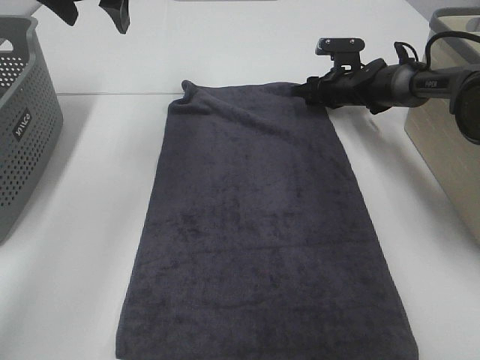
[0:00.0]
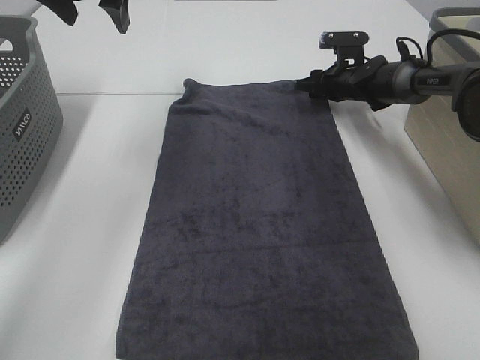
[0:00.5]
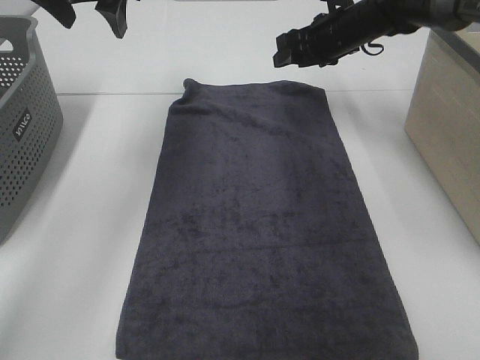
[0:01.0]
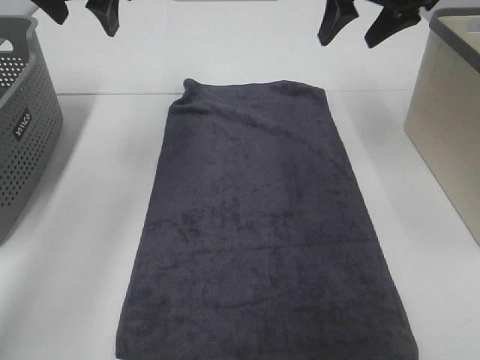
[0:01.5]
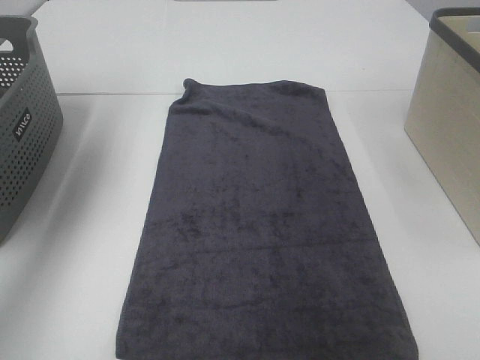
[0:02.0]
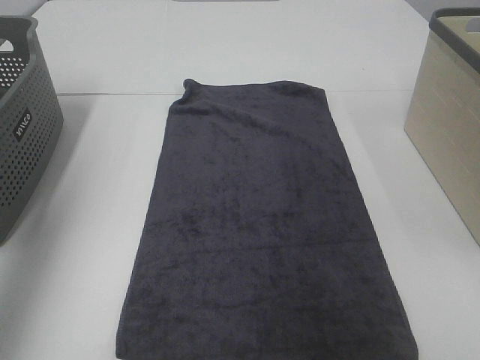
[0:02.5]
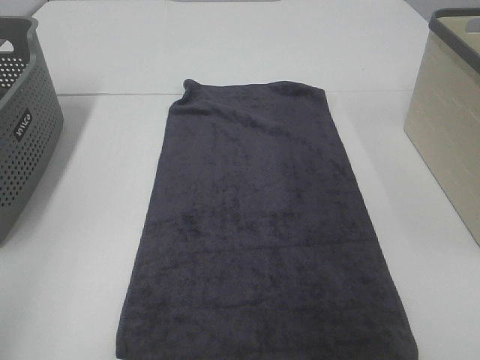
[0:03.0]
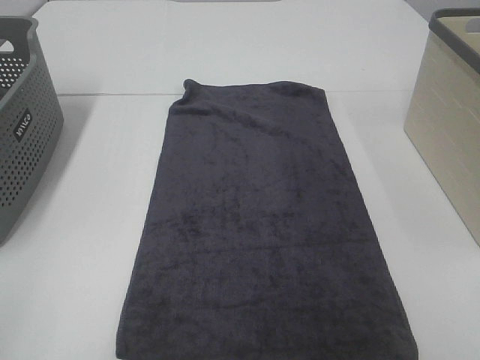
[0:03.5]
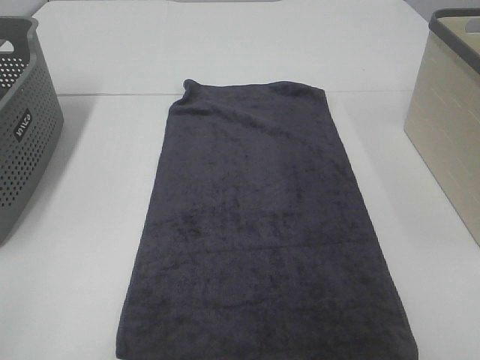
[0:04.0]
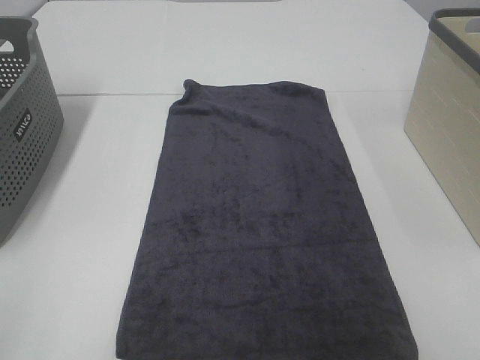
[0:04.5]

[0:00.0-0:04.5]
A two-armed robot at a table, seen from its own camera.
Task of the whole recording: Remove the towel and place it.
0:00.0 to 0:02.0: The right gripper is displaced upward and backward by approximately 40 cm, while the left gripper is displaced to the left, backward and upward by approximately 15 cm.
0:02.0 to 0:04.5: The left gripper is displaced backward by roughly 40 cm.

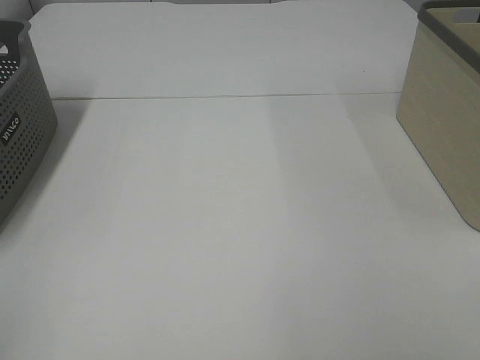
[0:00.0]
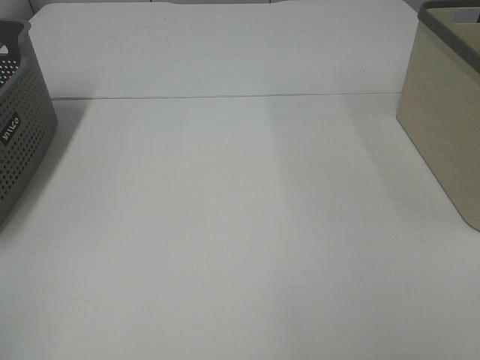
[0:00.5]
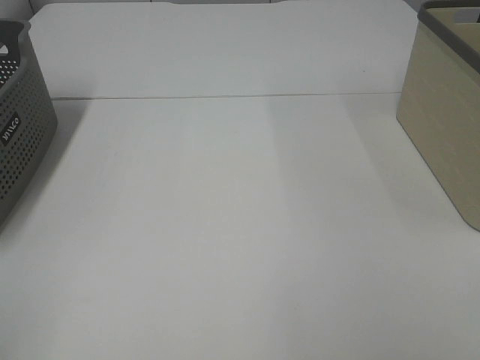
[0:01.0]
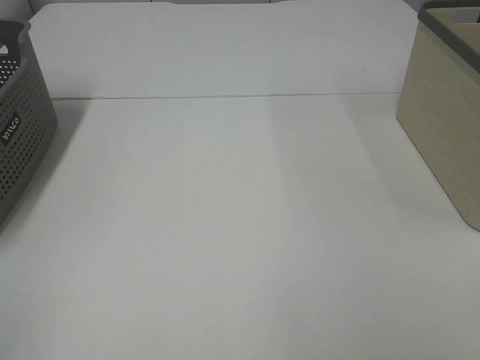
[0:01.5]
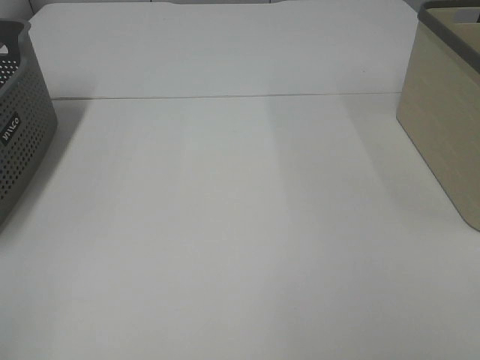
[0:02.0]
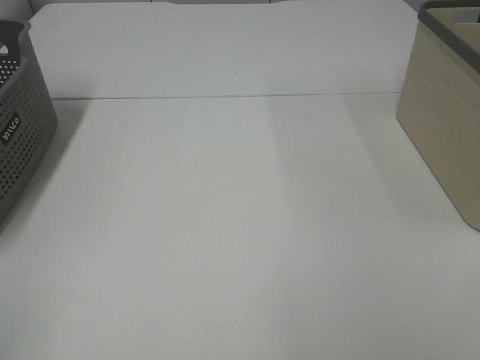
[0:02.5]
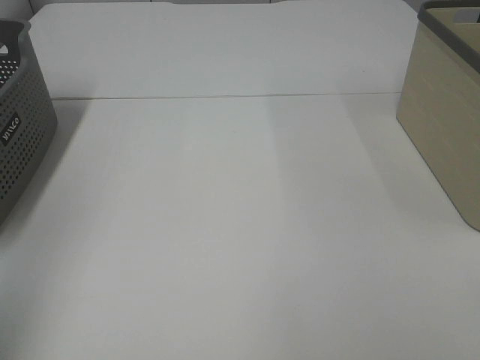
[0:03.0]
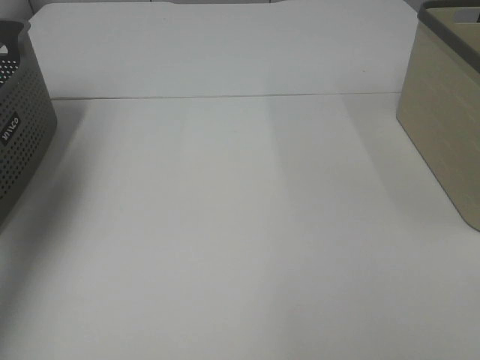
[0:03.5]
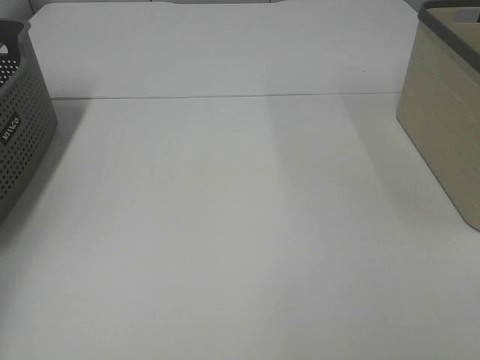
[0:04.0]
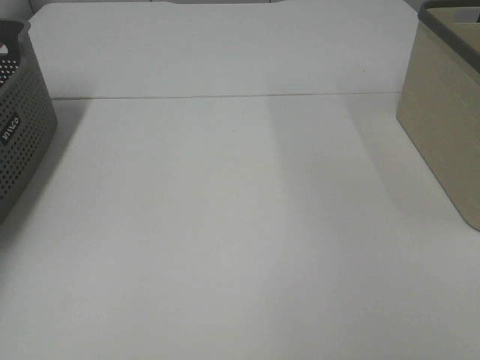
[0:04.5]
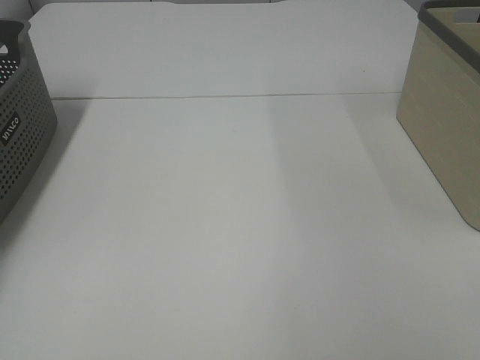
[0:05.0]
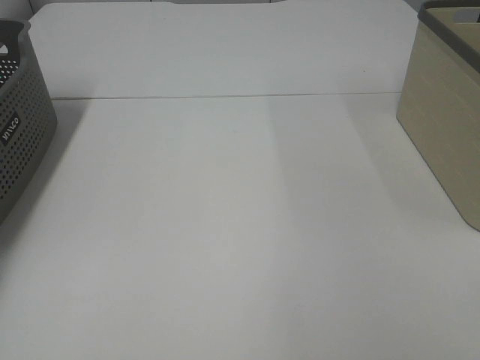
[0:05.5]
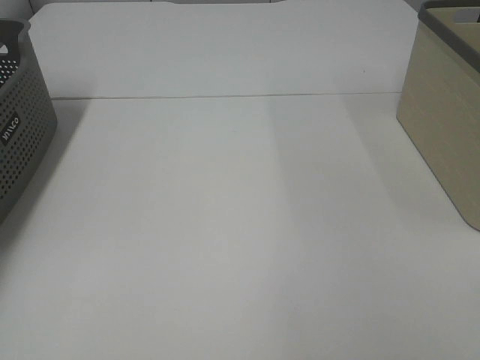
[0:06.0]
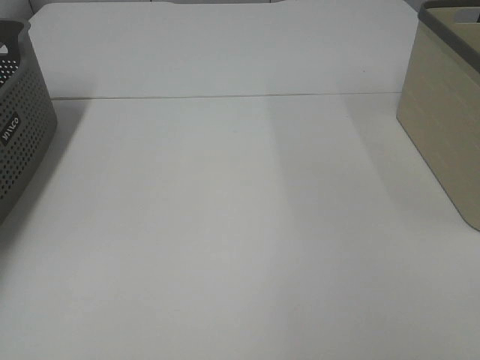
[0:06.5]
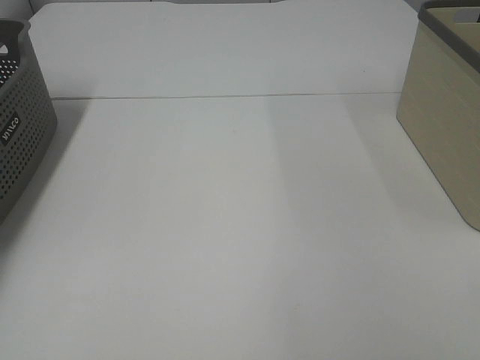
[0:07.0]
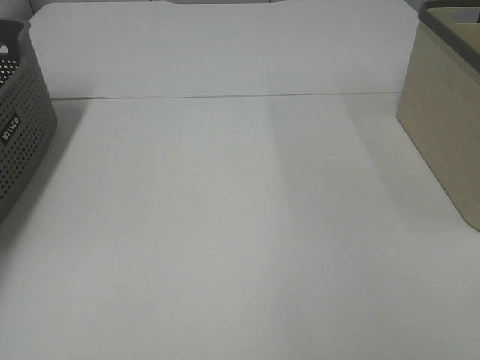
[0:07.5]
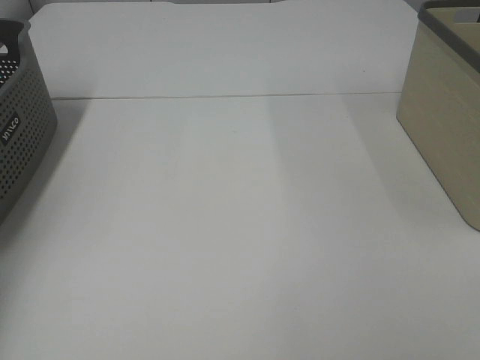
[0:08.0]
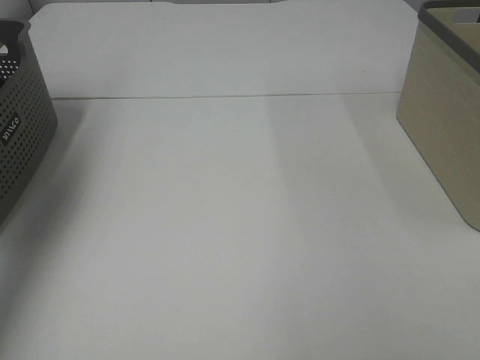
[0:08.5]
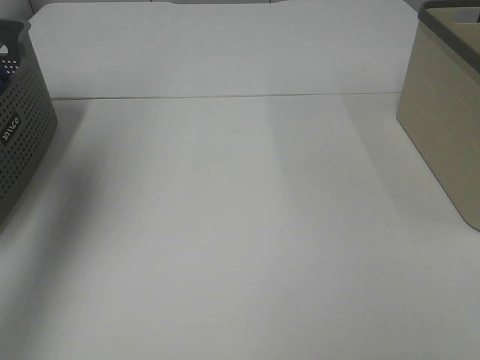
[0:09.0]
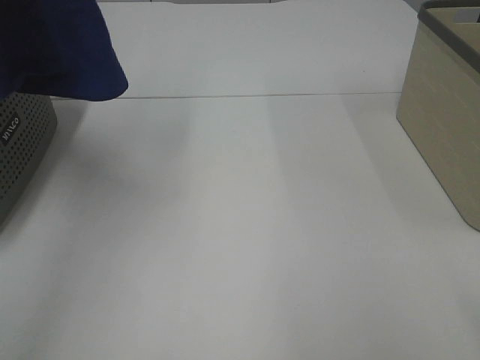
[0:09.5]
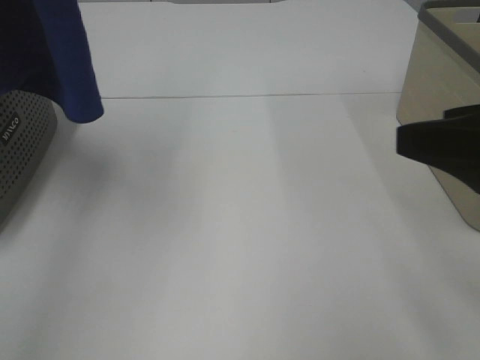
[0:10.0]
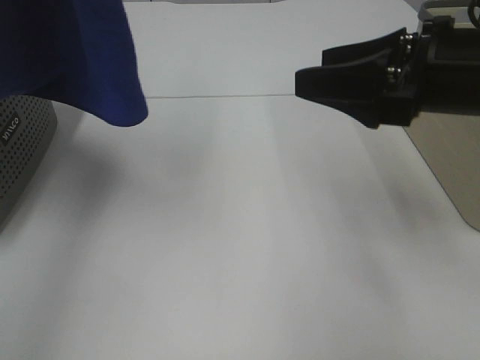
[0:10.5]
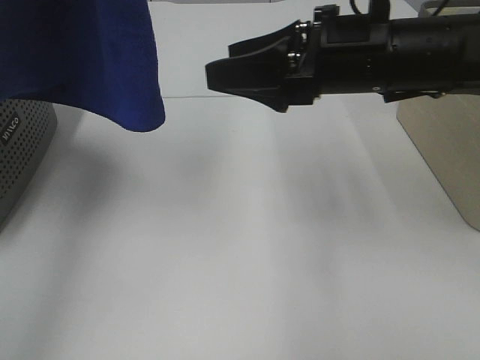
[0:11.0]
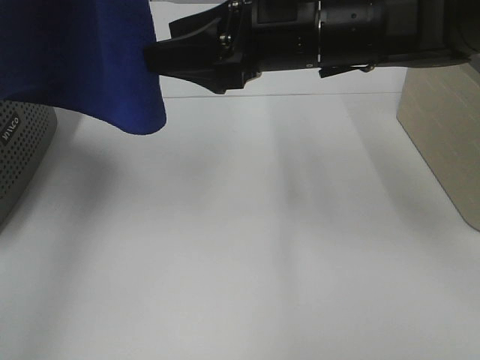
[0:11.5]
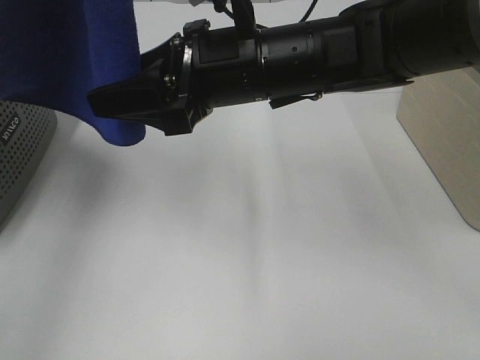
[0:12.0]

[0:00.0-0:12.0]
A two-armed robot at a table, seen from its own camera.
Task of the whole recording: Remove the towel and place it.
Step, 0:08.5 to 0:11.5: Right hand: grab a corner of the blue towel and straighten it.
0:00.0 to 0:02.0: Neither gripper changes place.
0:02.0 to 0:04.0: The left gripper goes about 40 cm forward.
0:08.0 to 0:10.0: The right gripper moves forward, some 15 cm; the left gripper heads upward, to the right and backward, covering approximately 35 cm.
0:10.0 to 0:12.0: The right gripper goes roughly 25 cm to the left and forward.

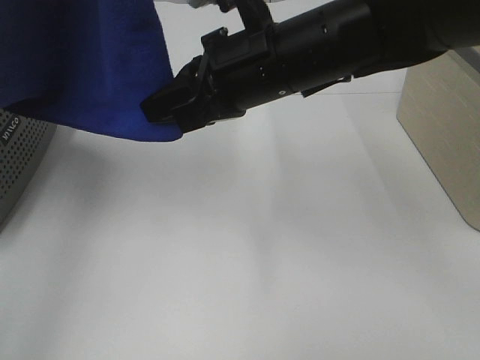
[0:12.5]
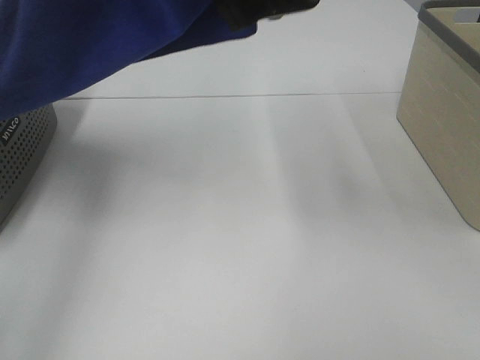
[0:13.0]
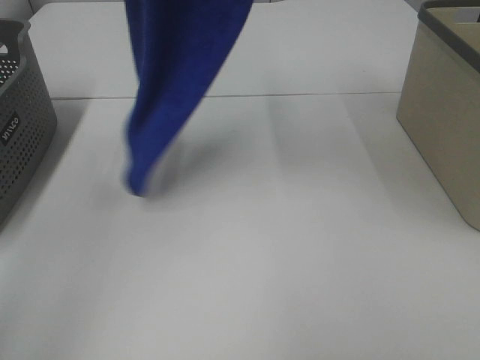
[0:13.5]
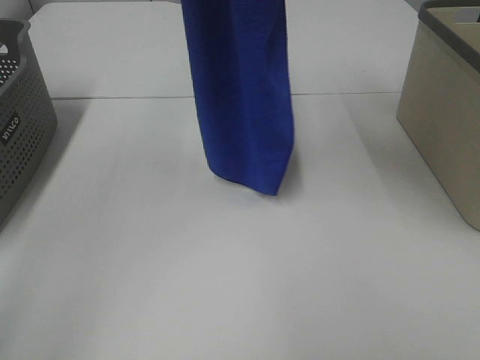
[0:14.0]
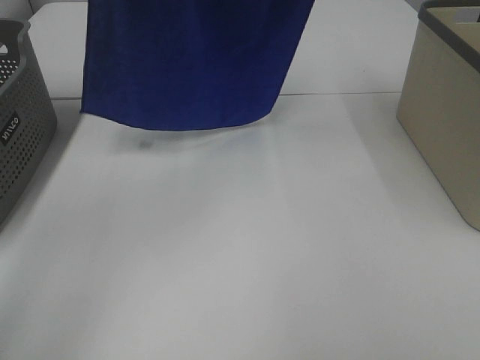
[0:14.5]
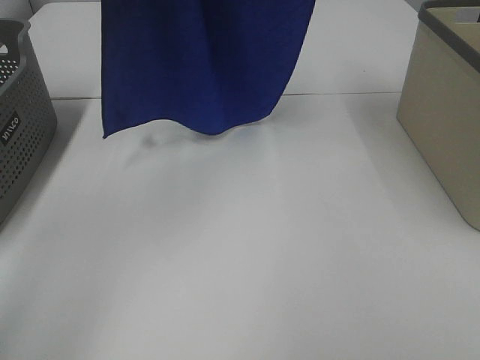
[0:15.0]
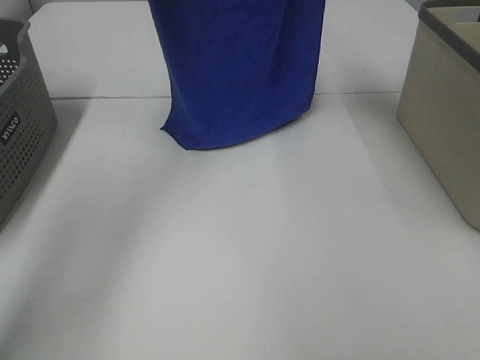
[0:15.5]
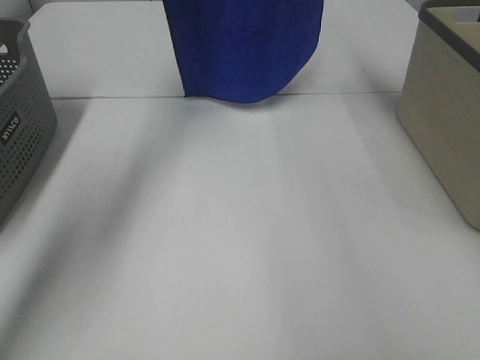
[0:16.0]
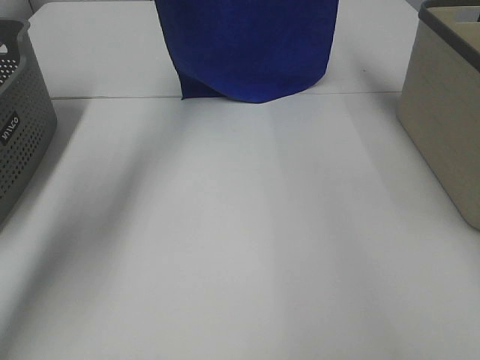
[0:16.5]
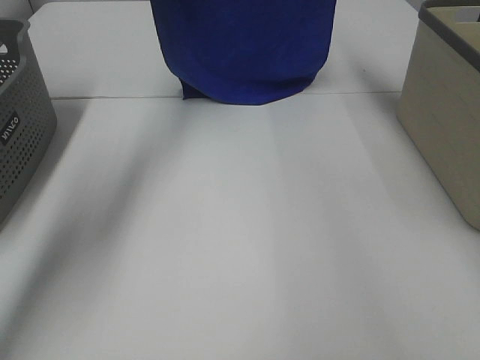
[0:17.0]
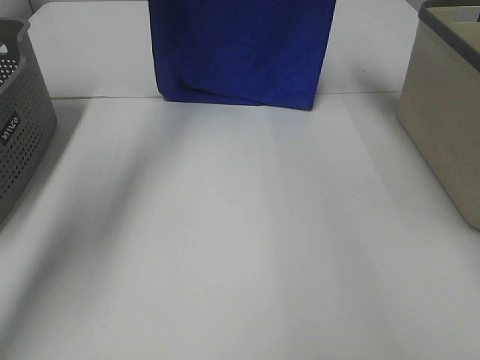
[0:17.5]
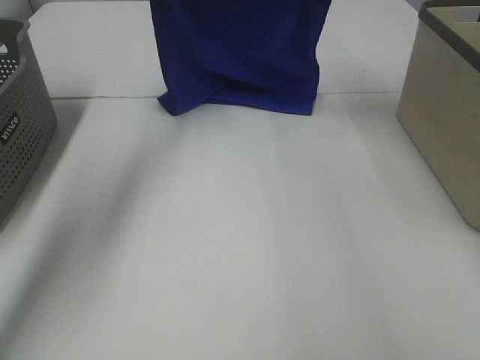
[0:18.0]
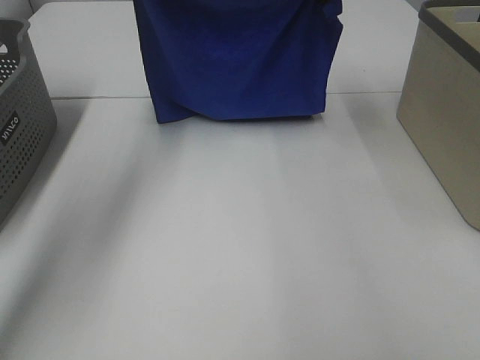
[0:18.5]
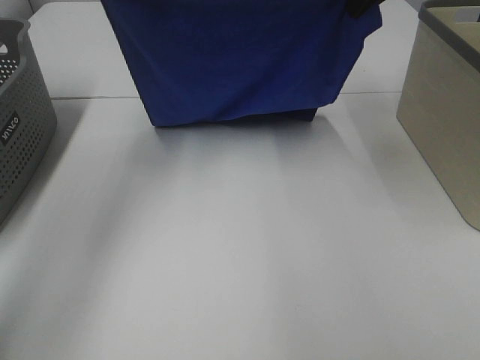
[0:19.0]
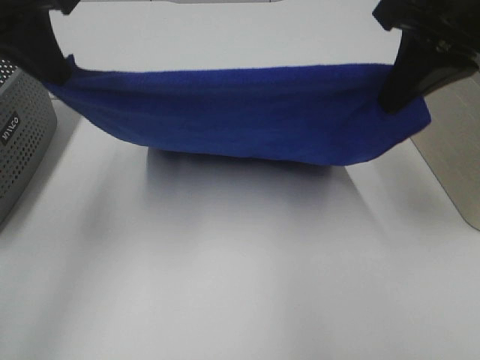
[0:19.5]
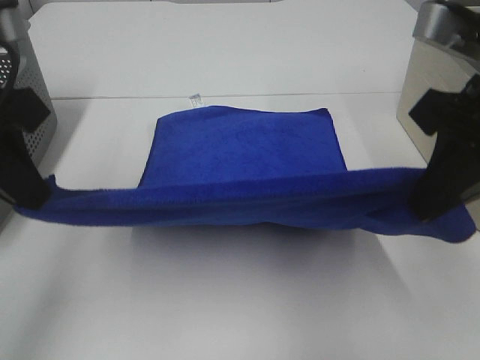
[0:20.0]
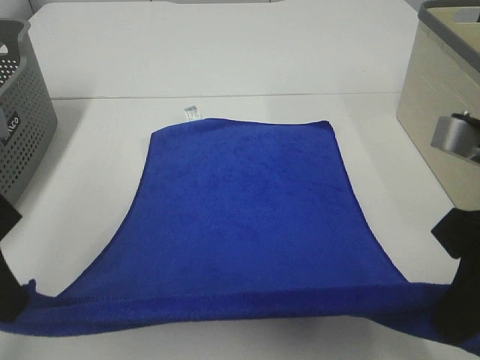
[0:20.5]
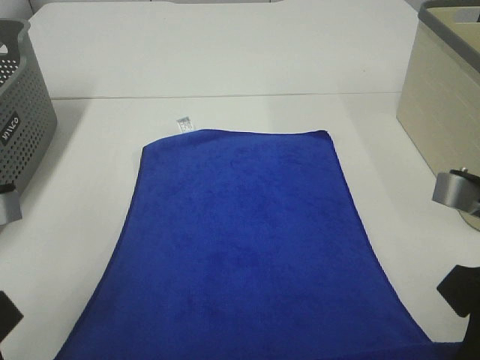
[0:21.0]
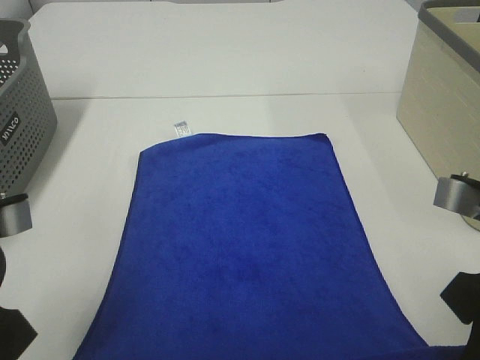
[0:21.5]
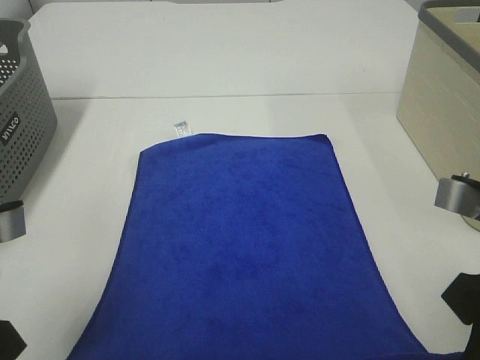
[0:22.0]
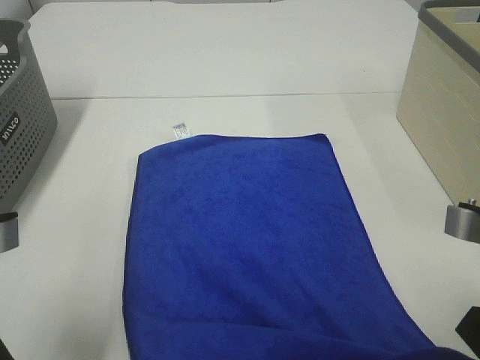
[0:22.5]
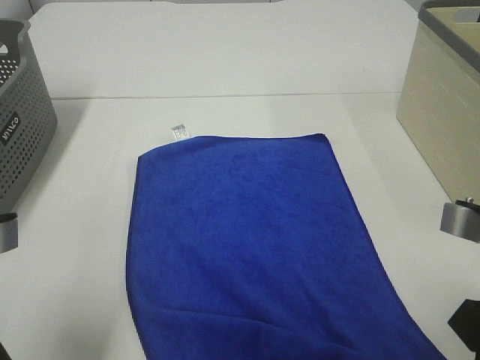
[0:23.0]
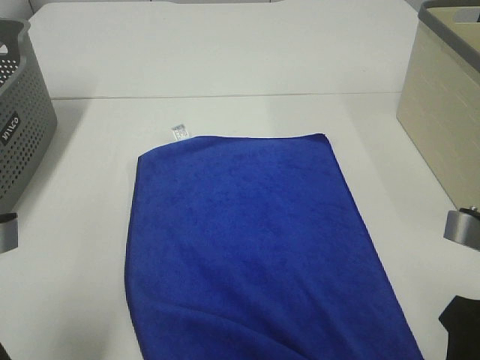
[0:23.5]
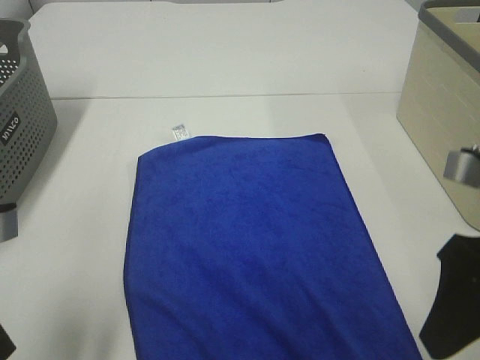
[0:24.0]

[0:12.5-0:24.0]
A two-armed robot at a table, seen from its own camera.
Task of the whole recording: Remove the towel and place it.
Step, 0:12.5 to 0:18.0: Left hand: spread the blue towel flat on the table.
Step, 0:12.5 to 0:19.0: Right hand: spread the blue towel flat on the table.
0:12.5 to 0:14.5: The right gripper travels upward and to the right by approximately 25 cm. Meanwhile the left gripper is displaced forward by approximately 10 cm.
0:14.5 to 0:16.5: The grippers both shift forward and downward by roughly 20 cm.
0:16.5 to 0:18.5: The right gripper moves downward and backward, approximately 10 cm; the left gripper travels downward by about 5 cm.
0:18.5 to 0:20.0: The two grippers go approximately 25 cm backward.
0:20.0 to 0:22.0: Both grippers travel together backward and downward, roughly 10 cm.
0:22.0 to 0:24.0: The right gripper opens its fingers.
